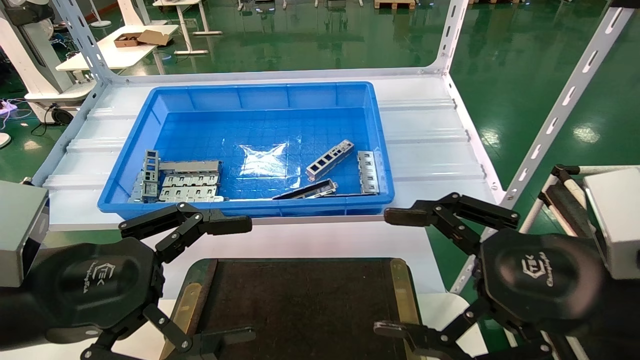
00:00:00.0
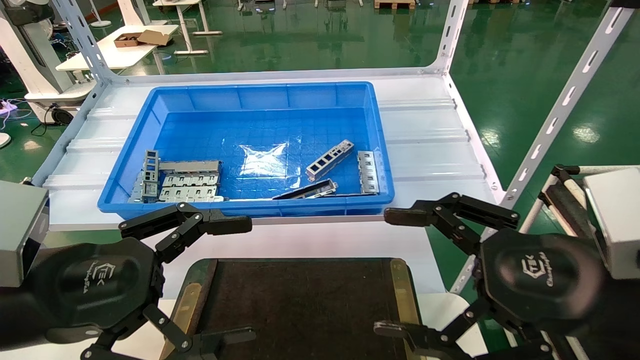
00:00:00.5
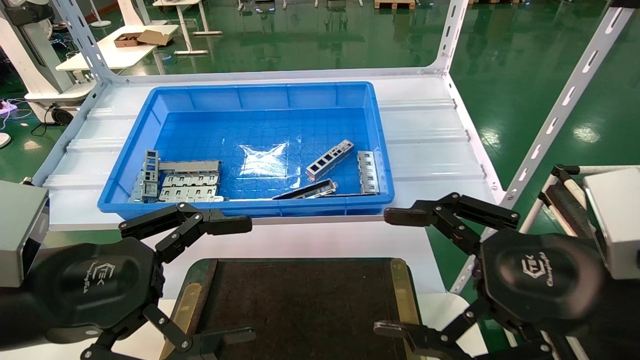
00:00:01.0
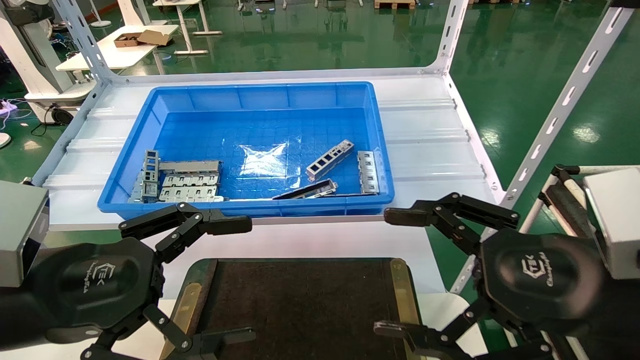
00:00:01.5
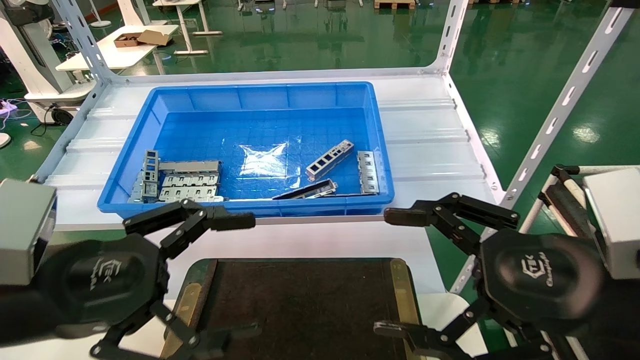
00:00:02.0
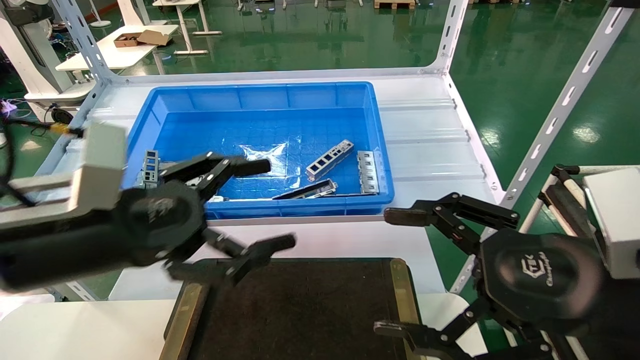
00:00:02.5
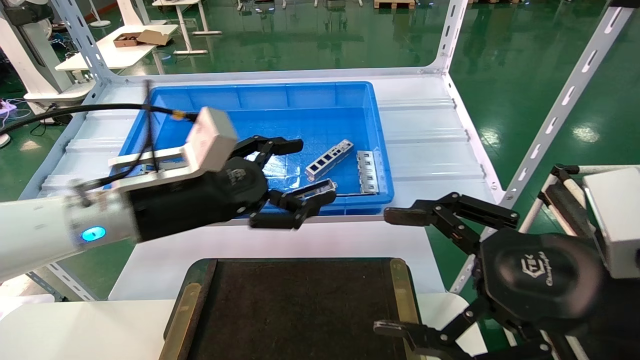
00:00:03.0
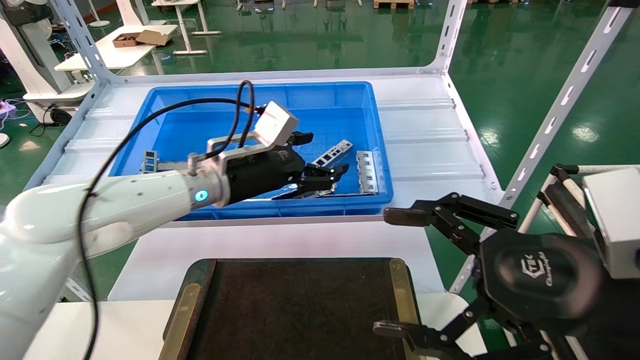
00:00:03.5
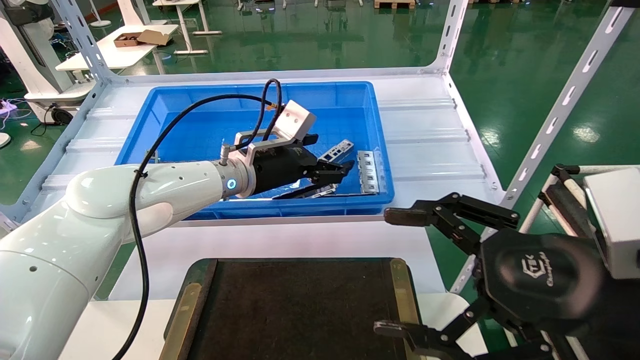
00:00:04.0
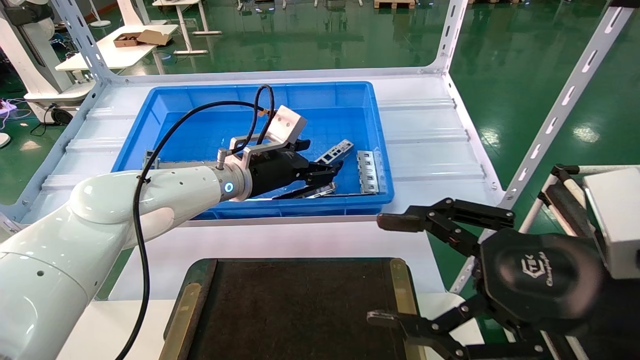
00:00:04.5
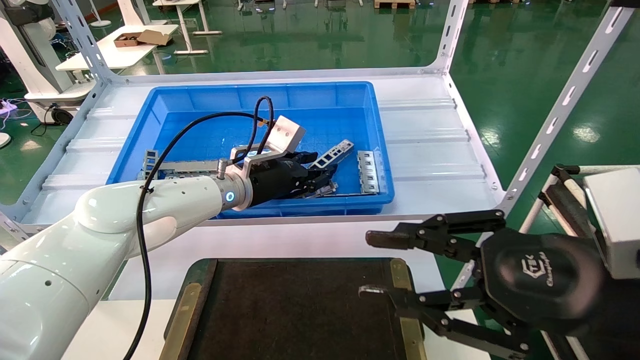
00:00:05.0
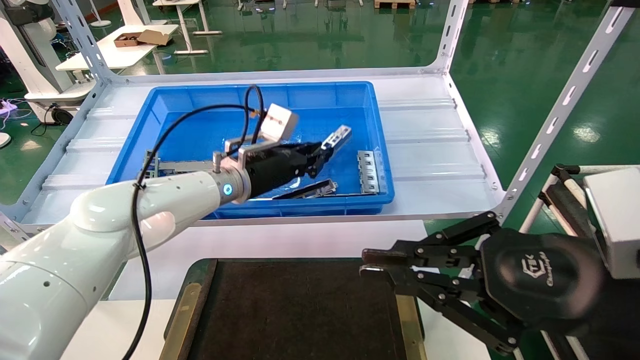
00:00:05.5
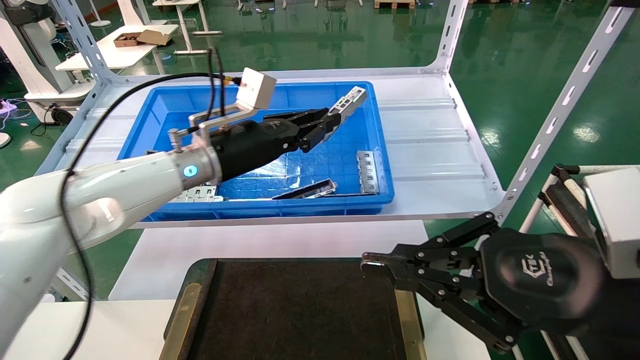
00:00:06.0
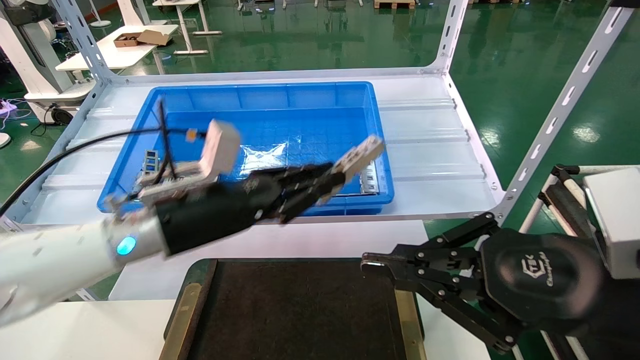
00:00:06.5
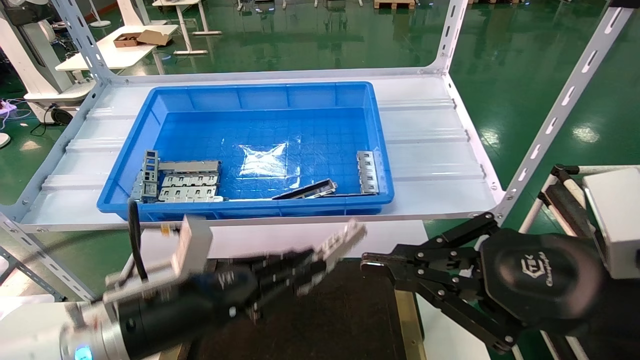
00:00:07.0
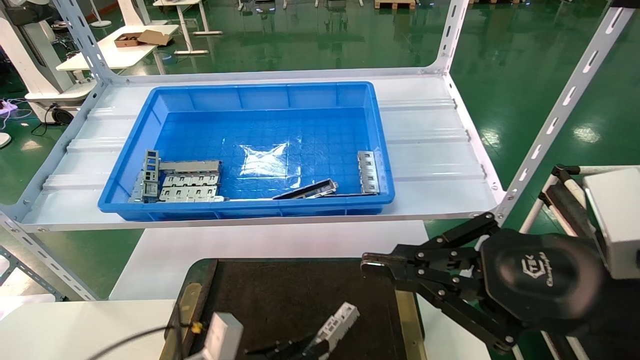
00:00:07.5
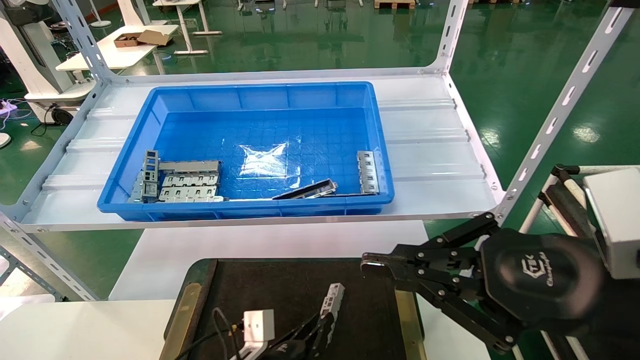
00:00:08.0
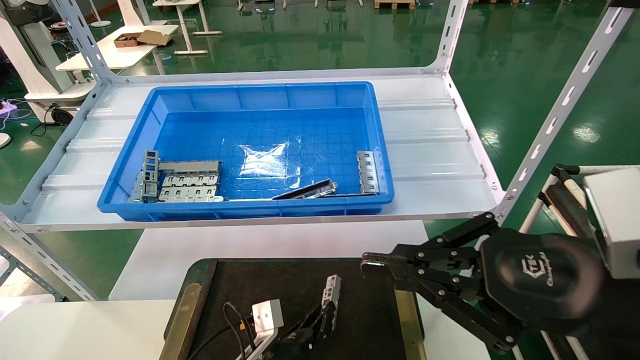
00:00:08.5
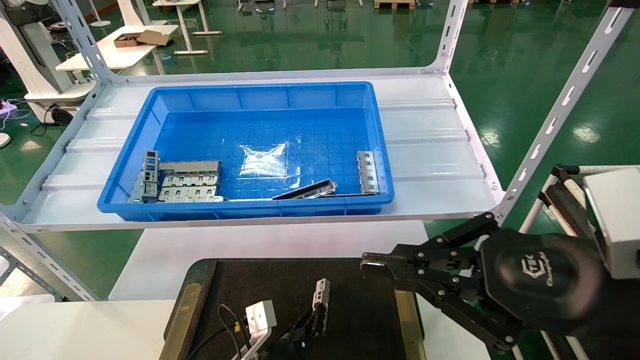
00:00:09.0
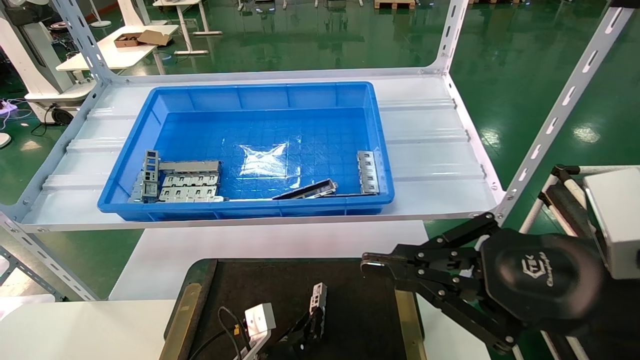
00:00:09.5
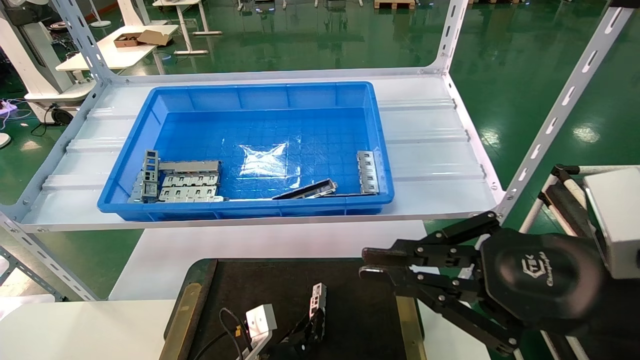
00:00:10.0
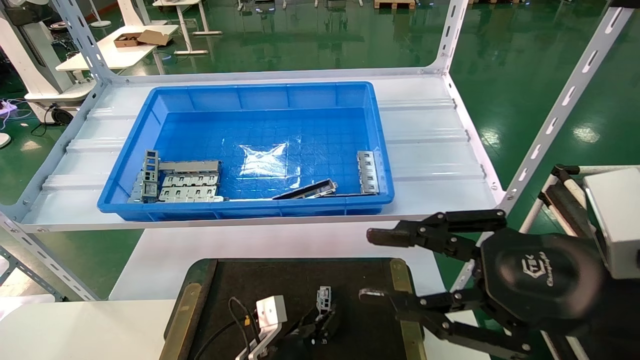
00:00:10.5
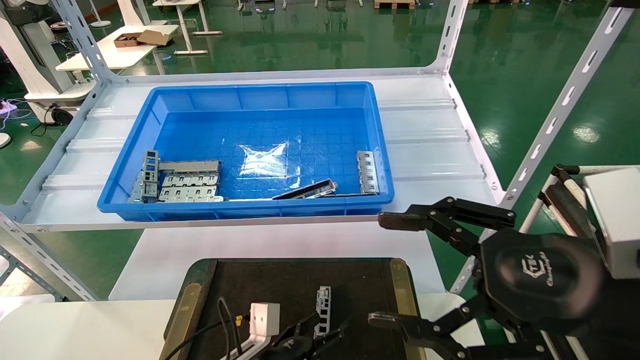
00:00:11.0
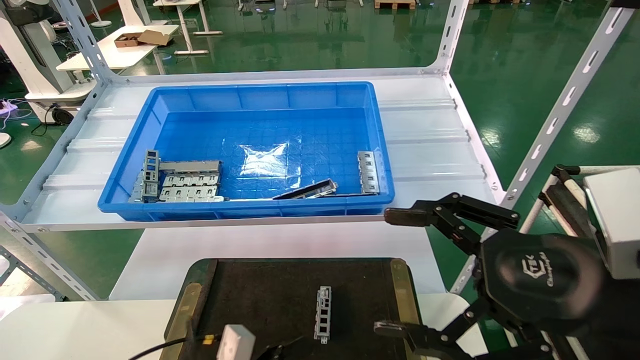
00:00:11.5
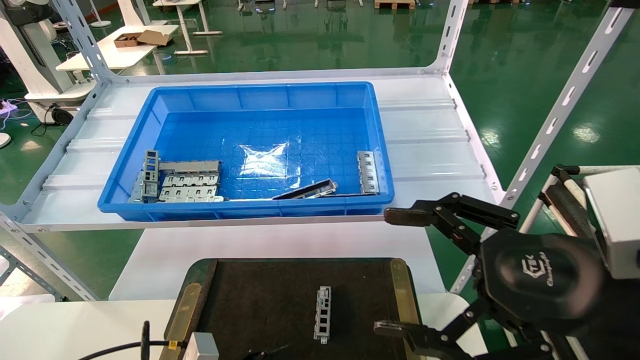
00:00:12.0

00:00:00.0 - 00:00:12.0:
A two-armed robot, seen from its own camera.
Task of the whole recording: Grasp the part with one hand and place it on the black container.
Step, 00:00:02.0 - 00:00:05.5: Pick up the front USB bracket from the feeding area.
Step, 00:00:06.0 - 00:00:10.0: Place the front USB bracket into the box.
00:00:00.0 - 00:00:02.0: Both grippers stay put.
00:00:02.0 - 00:00:04.0: The left gripper moves forward and to the right, approximately 30 cm.
00:00:04.0 - 00:00:06.0: The right gripper closes its fingers. Meanwhile the left gripper ends up about 5 cm from where it was, and closes up.
00:00:06.0 - 00:00:08.0: The left gripper travels downward by roughly 35 cm.
00:00:08.0 - 00:00:10.0: The left gripper changes place by roughly 5 cm.
00:00:10.0 - 00:00:12.0: The right gripper opens up. Meanwhile the left gripper is displaced backward, to the left and upward by some 20 cm, and opens.
